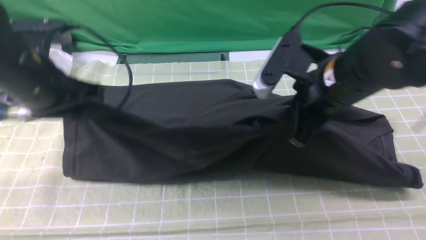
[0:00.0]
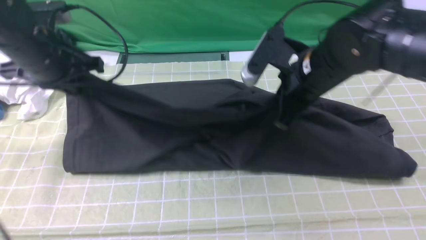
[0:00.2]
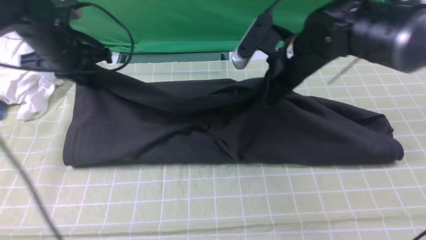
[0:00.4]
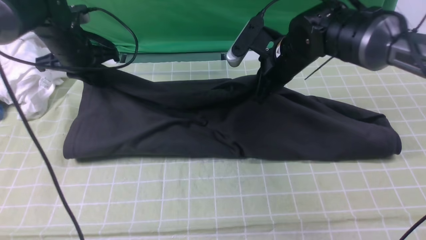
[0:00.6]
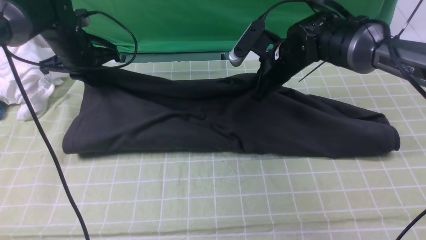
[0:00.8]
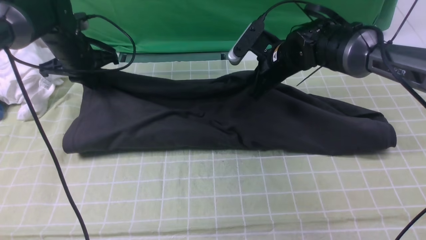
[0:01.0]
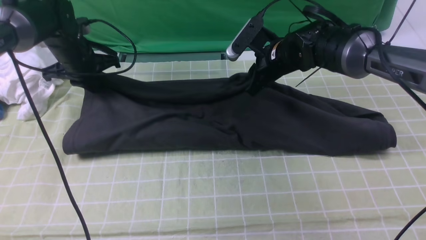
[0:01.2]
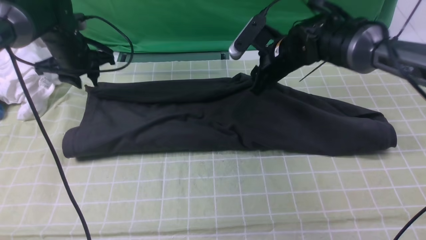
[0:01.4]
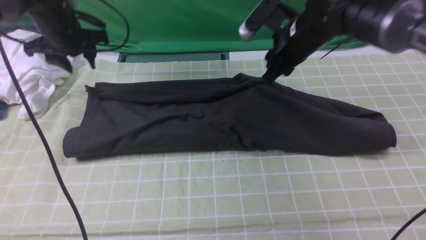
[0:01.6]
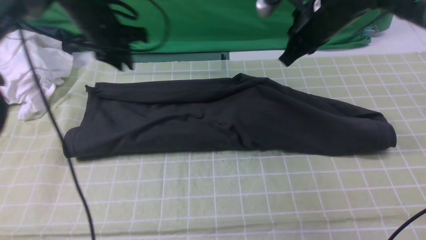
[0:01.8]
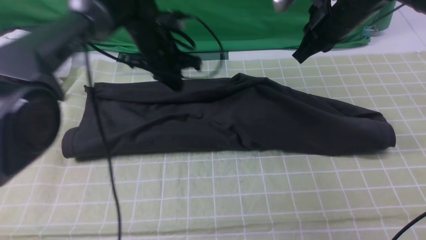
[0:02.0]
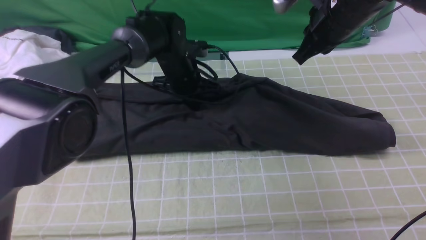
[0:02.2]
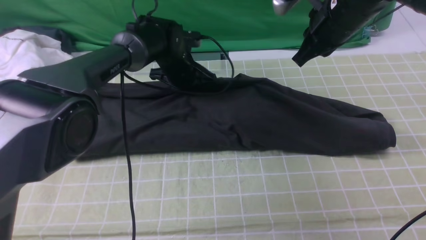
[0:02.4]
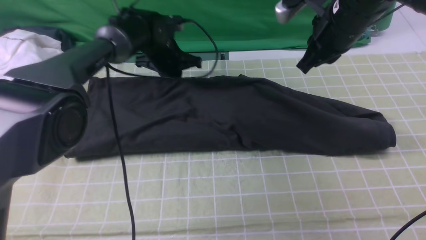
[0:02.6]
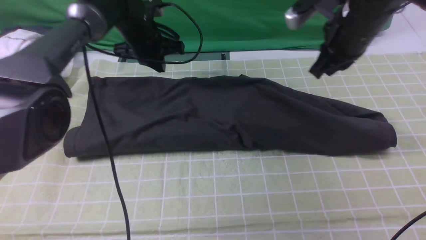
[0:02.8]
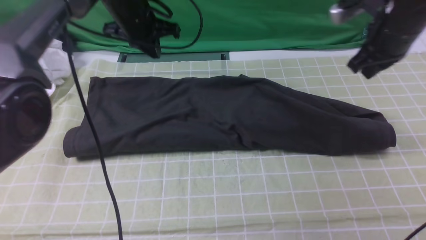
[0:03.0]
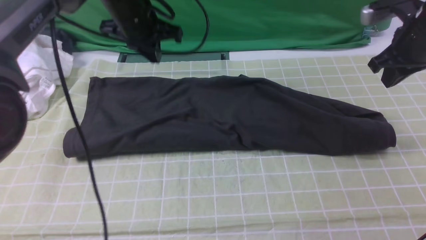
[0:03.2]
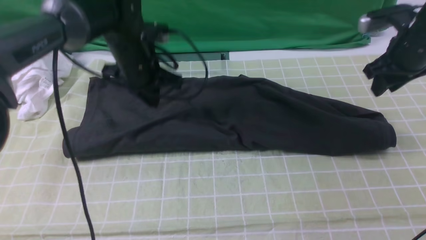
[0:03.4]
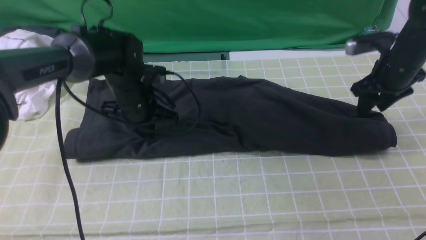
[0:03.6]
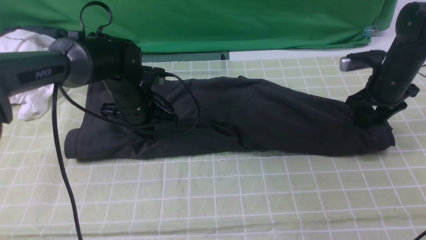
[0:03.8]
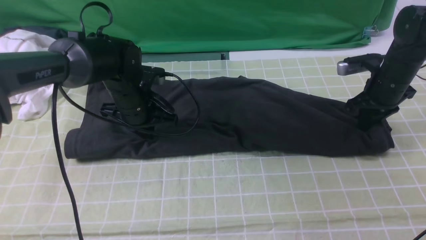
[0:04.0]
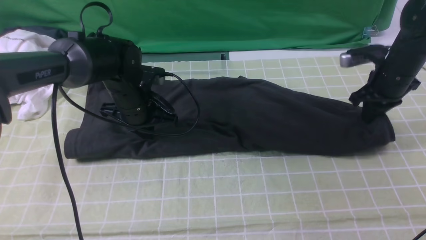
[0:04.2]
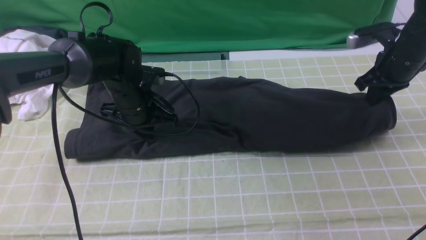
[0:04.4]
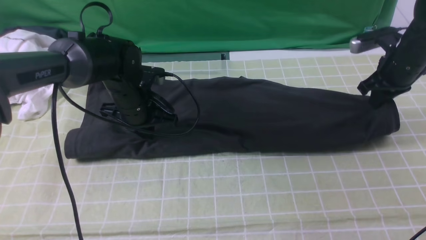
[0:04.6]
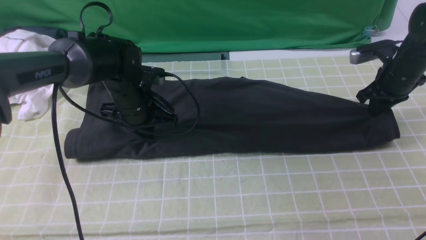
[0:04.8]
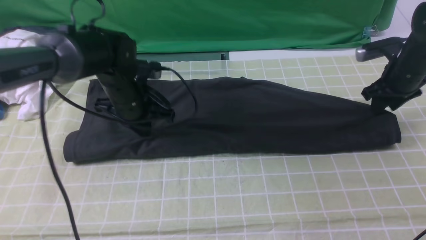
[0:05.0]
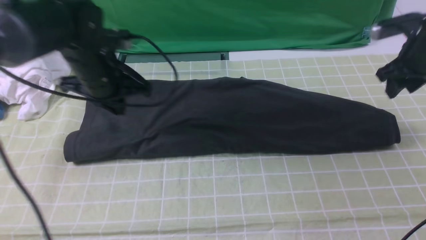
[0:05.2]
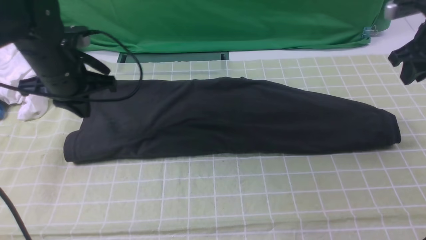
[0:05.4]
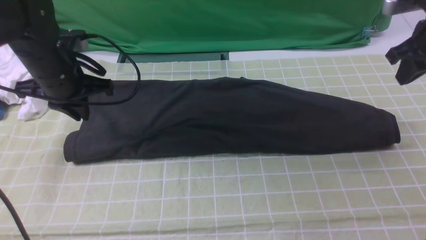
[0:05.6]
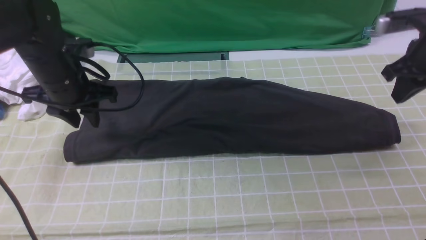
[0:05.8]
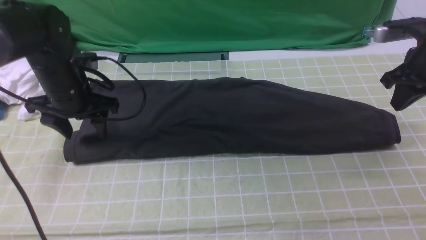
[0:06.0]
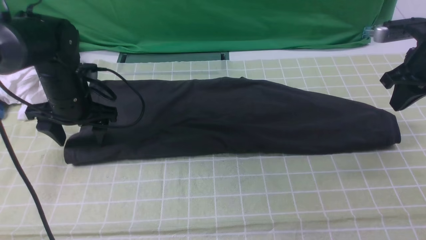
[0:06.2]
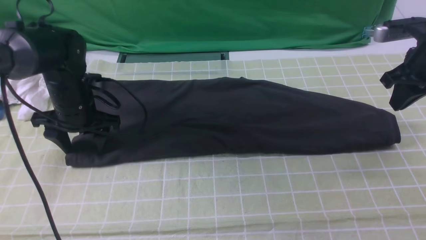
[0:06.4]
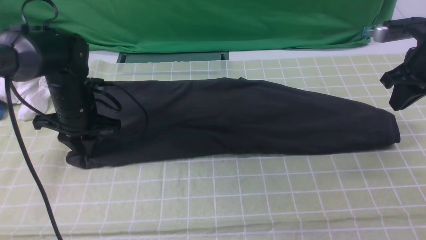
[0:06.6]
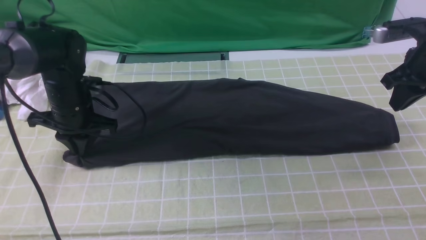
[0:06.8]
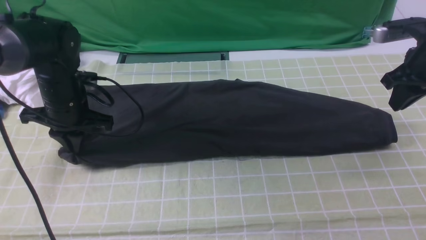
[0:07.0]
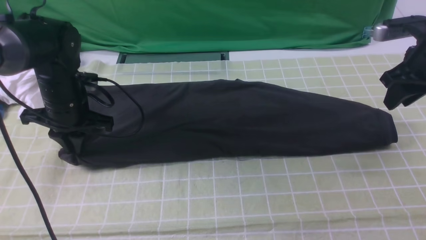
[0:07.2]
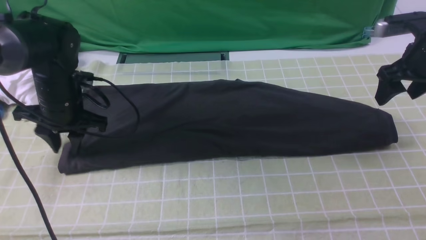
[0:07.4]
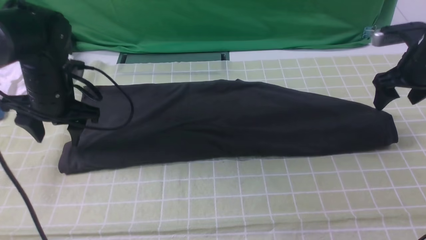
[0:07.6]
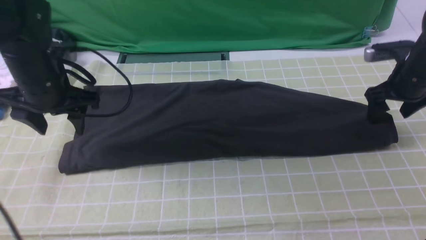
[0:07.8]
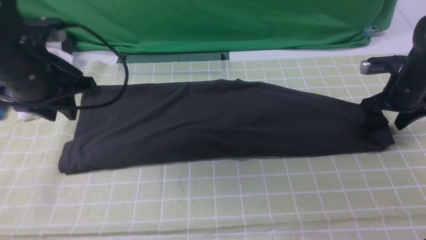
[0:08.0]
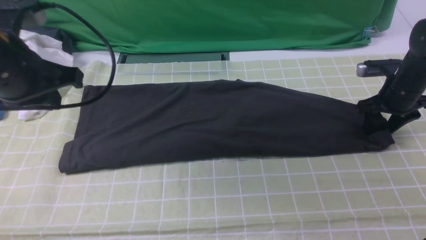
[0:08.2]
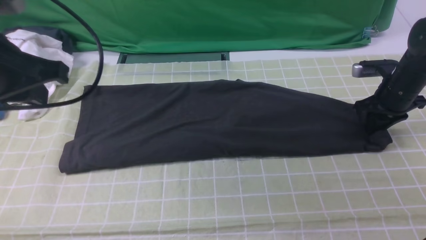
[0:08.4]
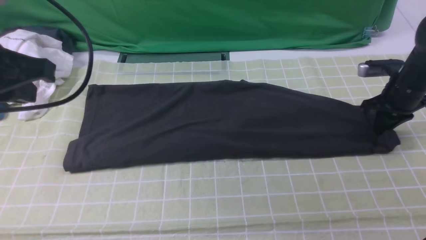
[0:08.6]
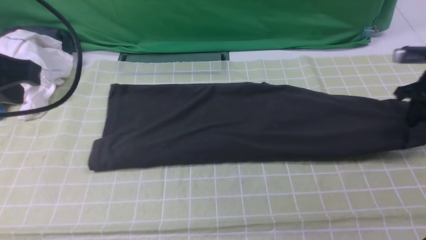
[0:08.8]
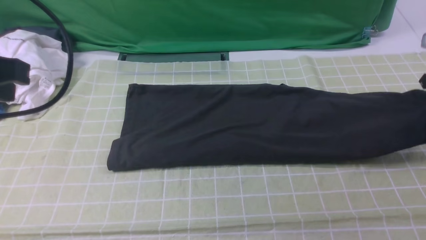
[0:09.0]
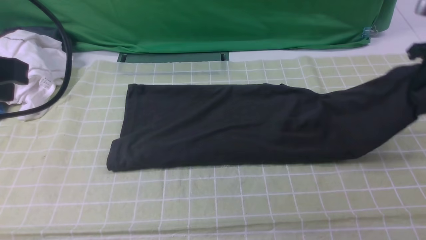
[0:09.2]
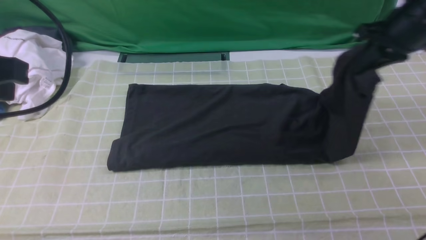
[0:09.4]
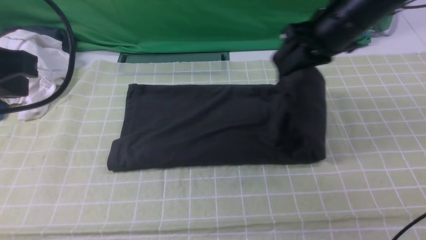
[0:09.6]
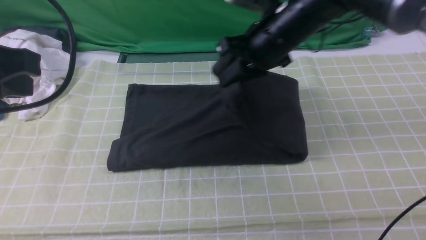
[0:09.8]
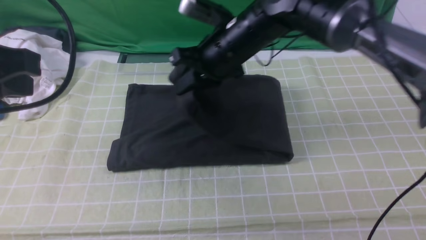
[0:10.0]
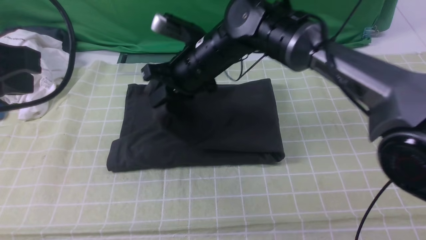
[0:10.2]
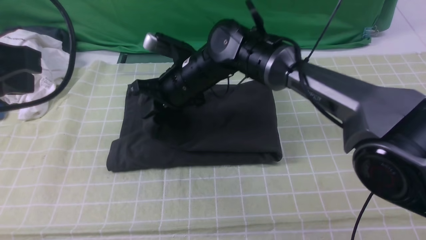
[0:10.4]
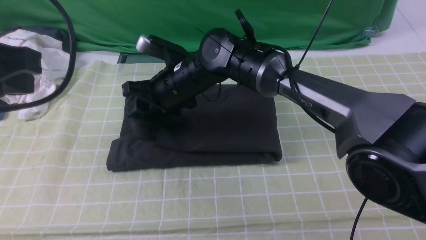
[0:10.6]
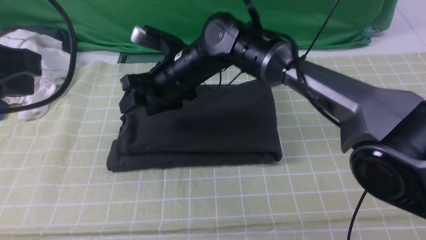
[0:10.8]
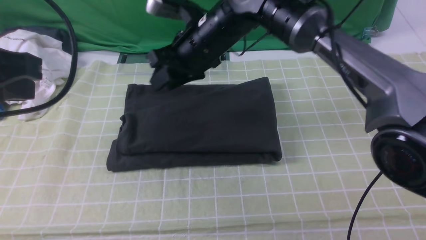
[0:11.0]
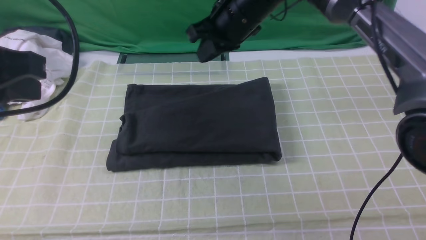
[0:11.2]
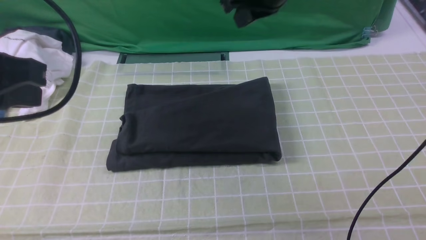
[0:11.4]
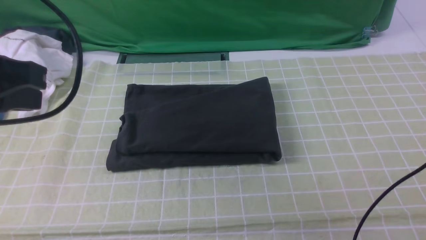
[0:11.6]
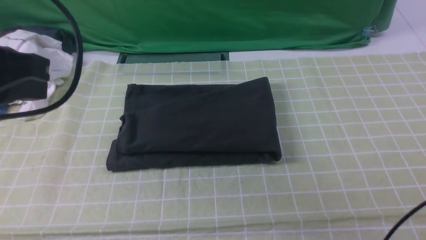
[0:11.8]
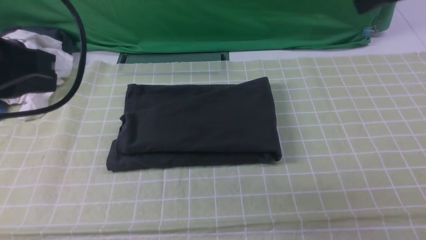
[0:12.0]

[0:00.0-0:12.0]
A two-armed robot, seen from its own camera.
Step, 0:00.0 to 0:02.4: use both arms to drag the lower edge of the fabric forward and fold it over the upper edge.
Step, 0:02.8 to 0:08.4: use the right arm to clamp the right edge of the fabric.
Step, 0:08.6 to 0:10.8: use the right arm to drag the right edge of the fabric to the left and folds it over the left edge.
0:00.0 to 0:01.6: The grippers both shift forward by approximately 15 cm. The right gripper opens up. Meanwhile the left gripper opens.
0:01.6 to 0:03.0: The two grippers go about 10 cm to the right. The left gripper closes its fingers; the right gripper closes its fingers.
0:03.0 to 0:04.4: The right gripper shifts about 10 cm downward and to the right, and opens, then closes again. The left gripper heads downward and backward, covering some 15 cm.
0:04.4 to 0:06.0: The right gripper moves upward, approximately 5 cm, and opens, then closes once more. Meanwhile the left gripper goes about 10 cm to the left and upward, and opens.
0:06.0 to 0:07.6: The right gripper moves some 5 cm, and opens. The left gripper closes and opens again.
0:07.6 to 0:09.0: The left gripper moves upward and backward, roughly 25 cm, and closes its fingers; the right gripper is displaced to the right by some 5 cm, moves some 5 cm downward and comes back, and closes up.
0:09.0 to 0:10.4: The right gripper shifts roughly 40 cm to the left.
0:10.4 to 0:12.0: The right gripper heads to the right and upward, covering roughly 35 cm, and closes its fingers.

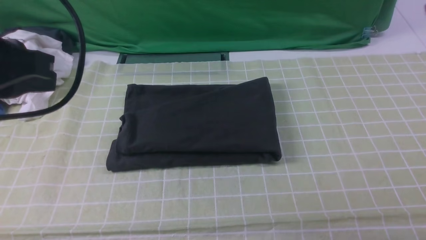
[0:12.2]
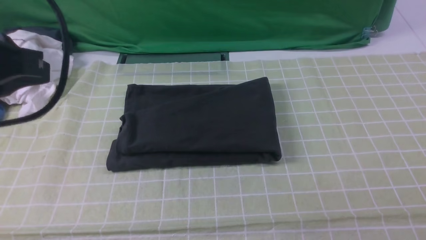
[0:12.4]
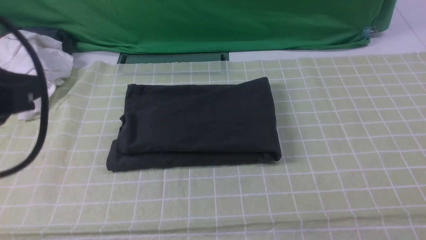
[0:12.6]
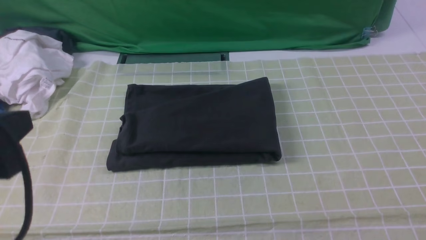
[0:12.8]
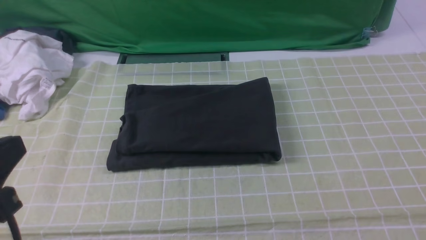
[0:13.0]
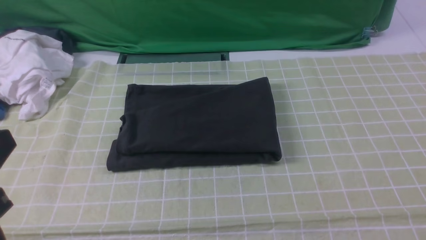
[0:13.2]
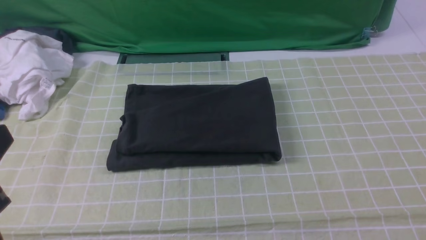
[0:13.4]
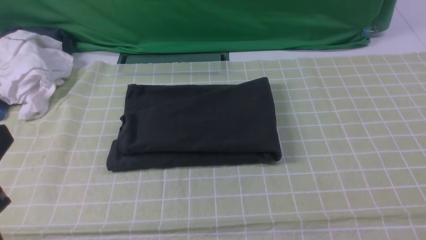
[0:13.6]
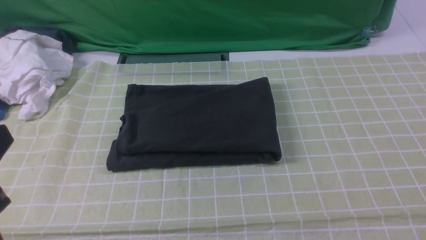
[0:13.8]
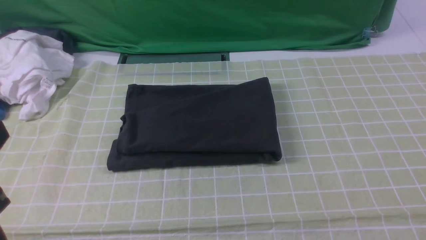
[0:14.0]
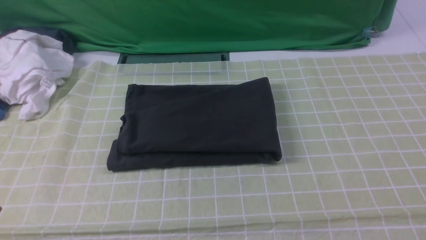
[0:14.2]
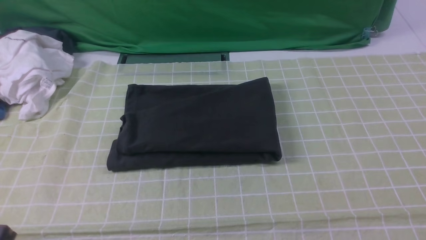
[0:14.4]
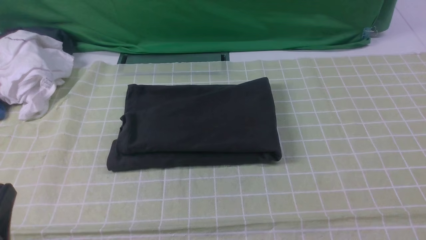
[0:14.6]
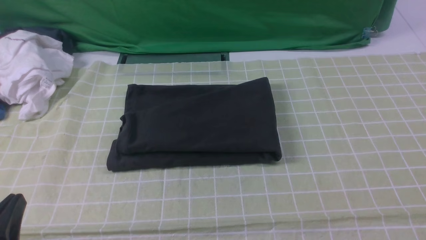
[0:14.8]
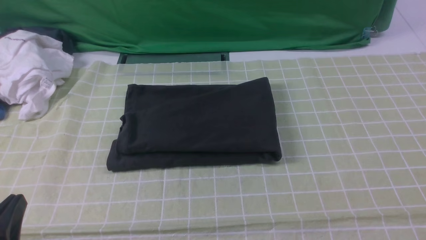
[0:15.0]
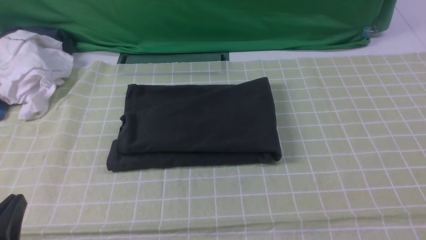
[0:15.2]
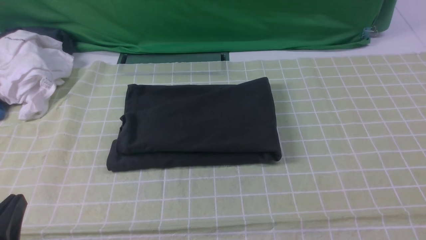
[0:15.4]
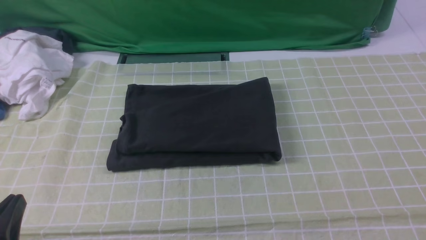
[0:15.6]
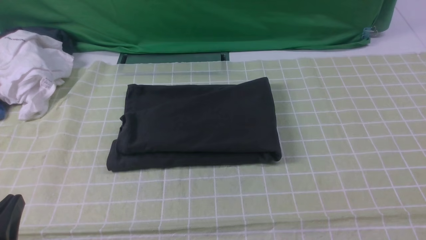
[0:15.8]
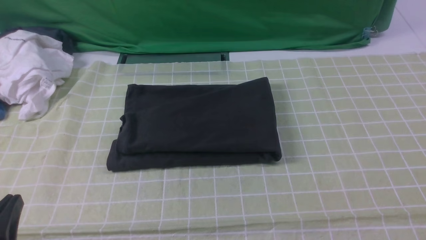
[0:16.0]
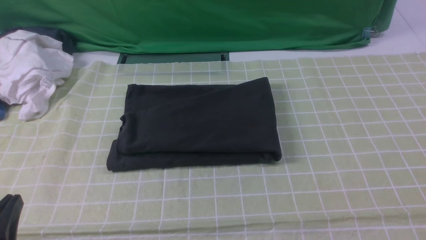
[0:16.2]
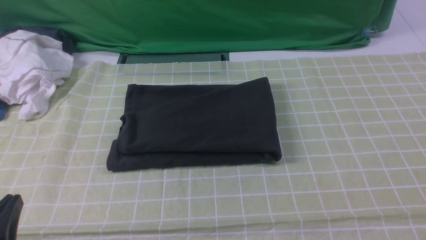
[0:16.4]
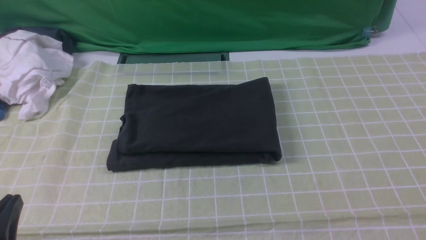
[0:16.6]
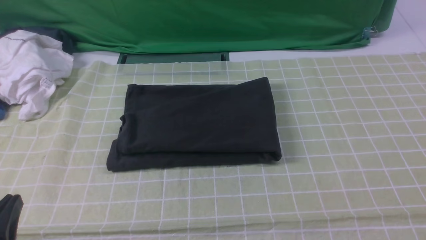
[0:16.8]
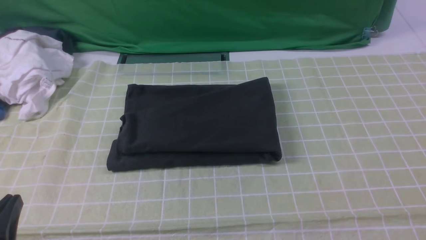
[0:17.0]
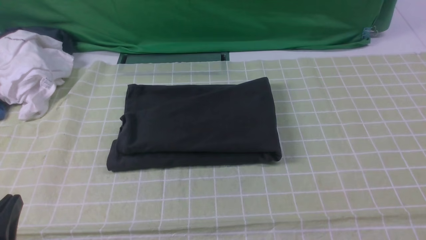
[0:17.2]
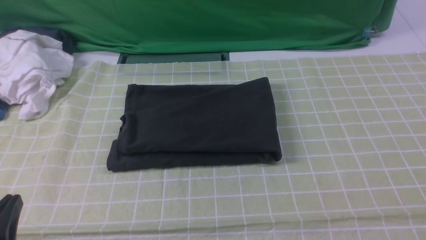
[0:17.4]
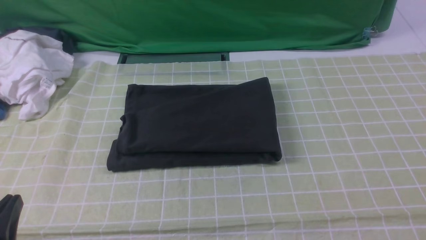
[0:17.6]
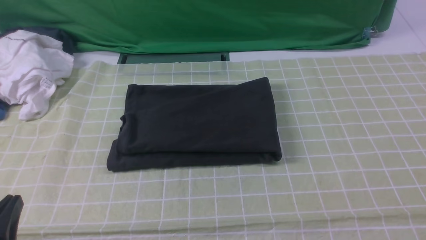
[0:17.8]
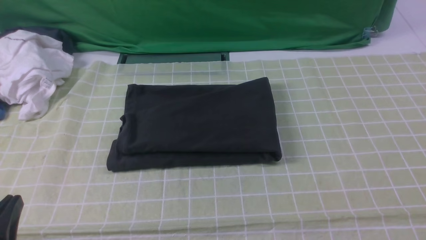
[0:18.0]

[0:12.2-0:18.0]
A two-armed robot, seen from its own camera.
0:12.2 to 0:13.6: The left gripper moves backward and downward, roughly 15 cm.
0:13.6 to 0:15.0: The left gripper is displaced downward by some 15 cm.
0:15.0 to 0:16.6: Neither gripper changes place.
